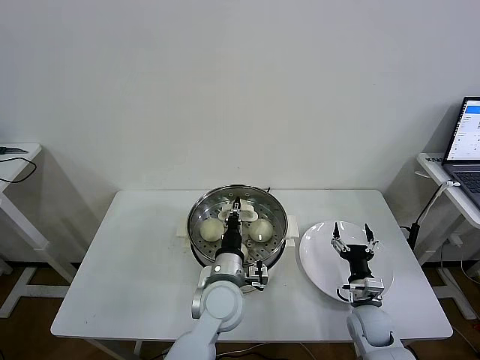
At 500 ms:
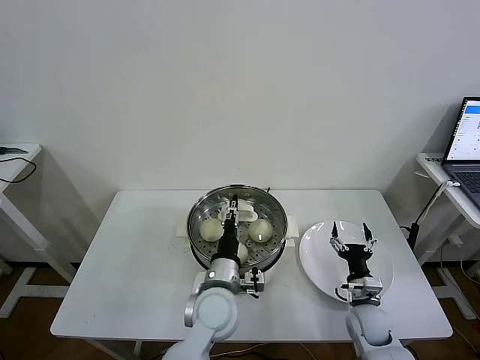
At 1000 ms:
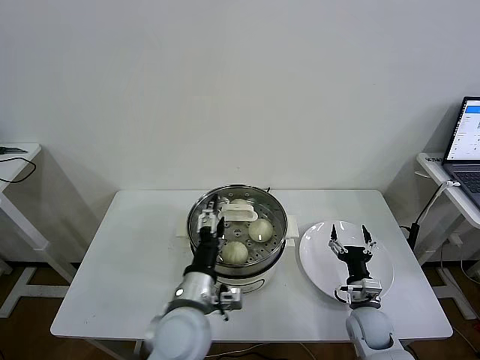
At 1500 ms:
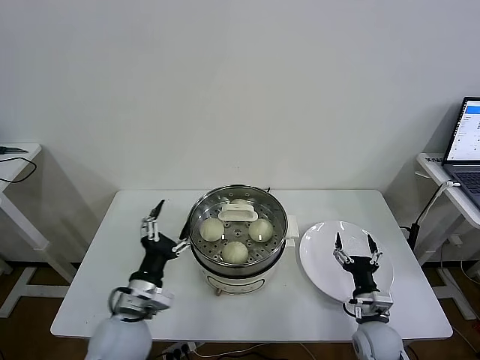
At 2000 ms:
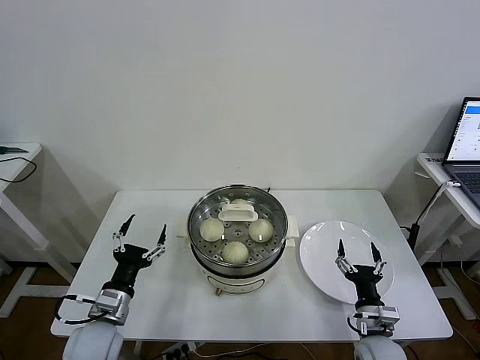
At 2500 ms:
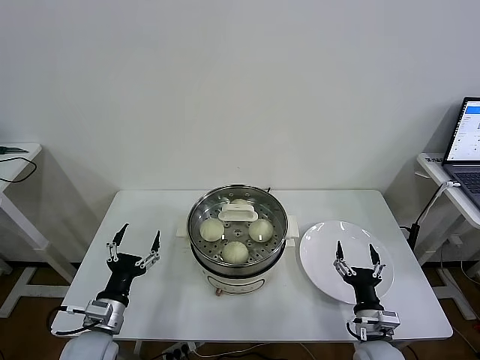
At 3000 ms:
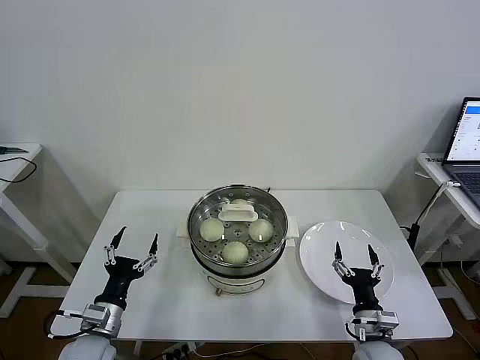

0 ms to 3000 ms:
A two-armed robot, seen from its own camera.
Task of the whole recording: take steamed baozi put them in steamer then cover it.
0 ms to 1500 ms: The left gripper moves to the left and backward, some 20 cm, and opens up.
1500 ms to 3000 ms: The left gripper moves to the left and downward, roughly 15 cm; the right gripper shifts by approximately 5 cm.
